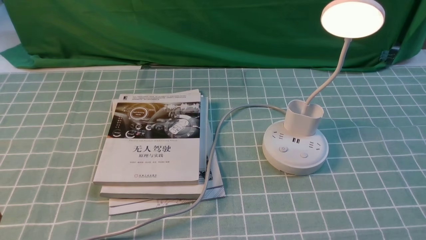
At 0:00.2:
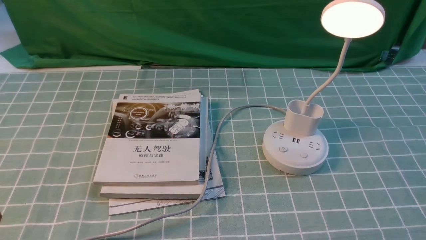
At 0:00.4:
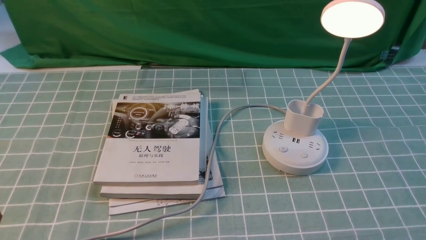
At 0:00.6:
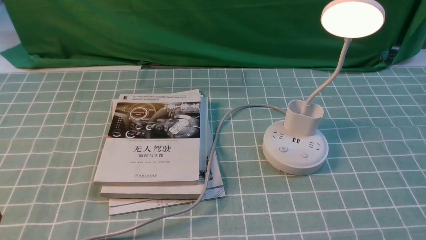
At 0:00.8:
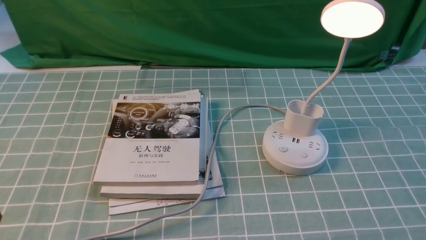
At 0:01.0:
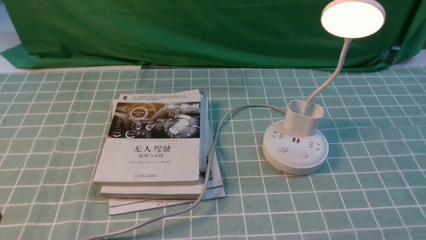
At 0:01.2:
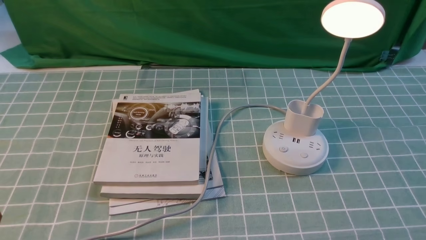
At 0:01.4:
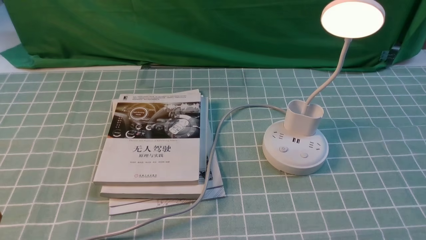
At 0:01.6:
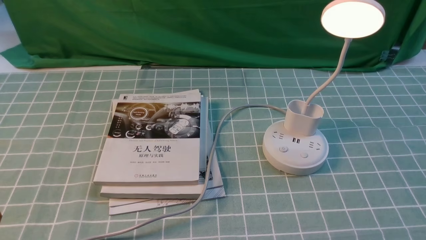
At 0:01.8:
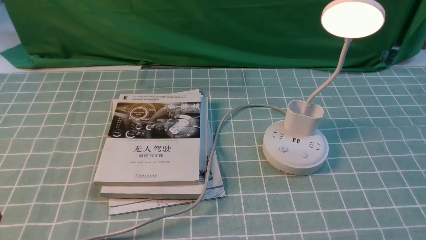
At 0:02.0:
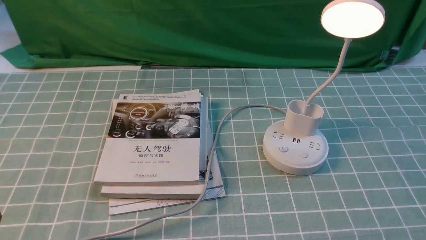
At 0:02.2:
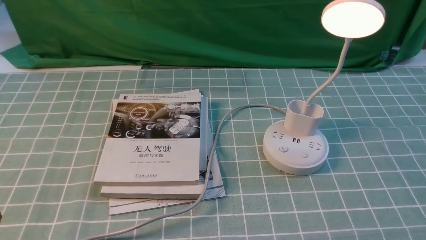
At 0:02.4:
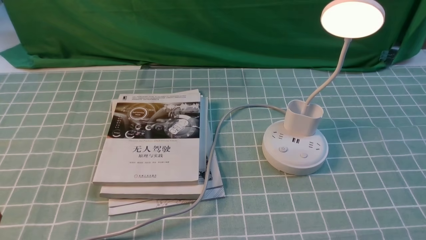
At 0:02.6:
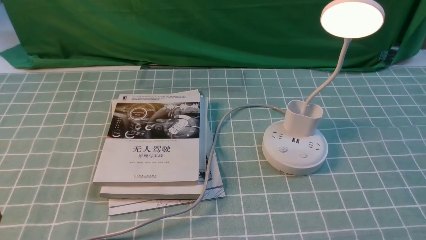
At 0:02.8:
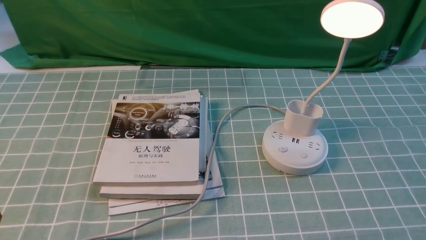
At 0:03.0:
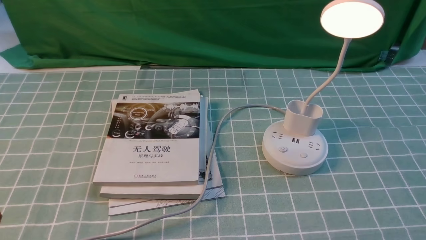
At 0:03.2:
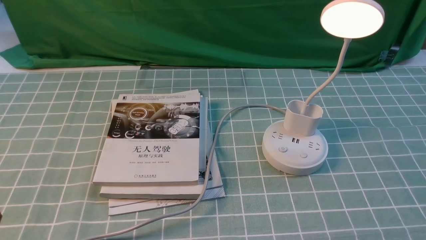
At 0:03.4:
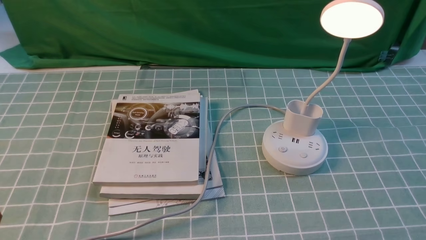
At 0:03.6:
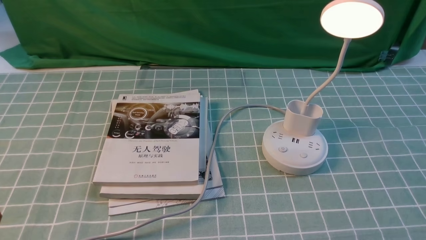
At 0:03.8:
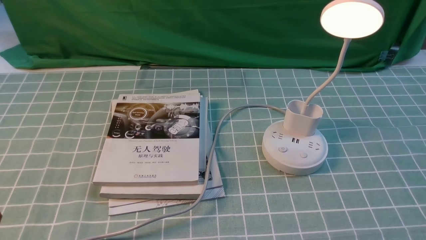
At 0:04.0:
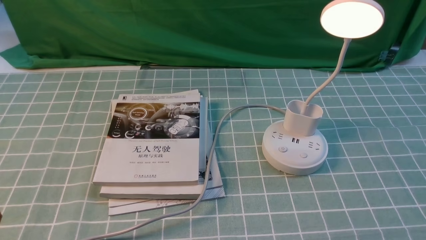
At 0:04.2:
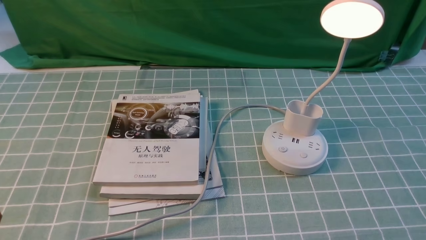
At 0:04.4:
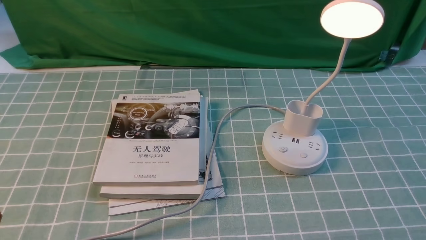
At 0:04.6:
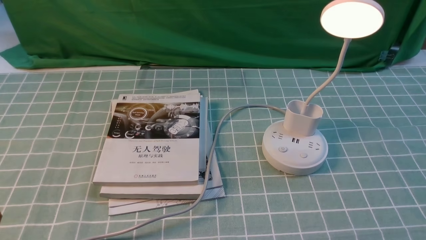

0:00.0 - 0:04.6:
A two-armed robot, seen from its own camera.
0:01.6 - 0:04.6: Both grippers stay about where they are.

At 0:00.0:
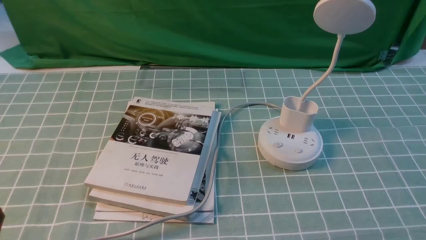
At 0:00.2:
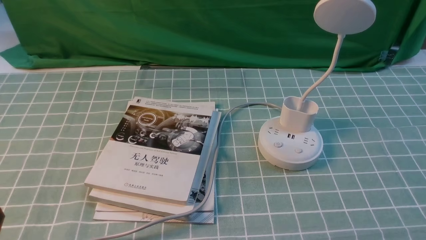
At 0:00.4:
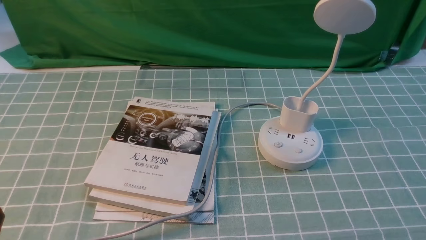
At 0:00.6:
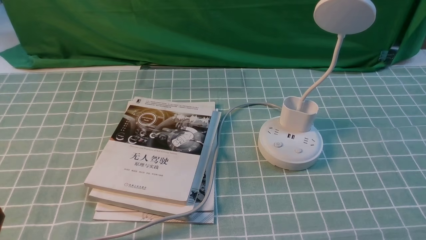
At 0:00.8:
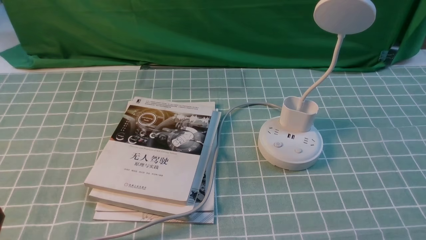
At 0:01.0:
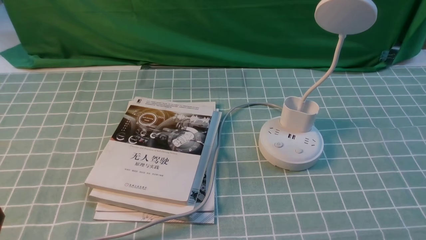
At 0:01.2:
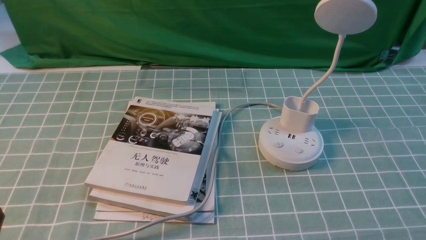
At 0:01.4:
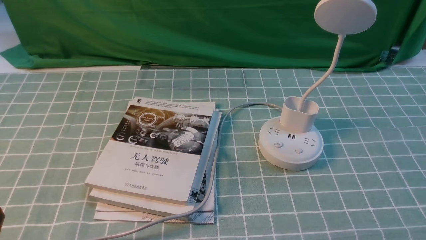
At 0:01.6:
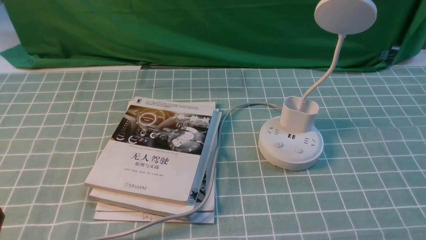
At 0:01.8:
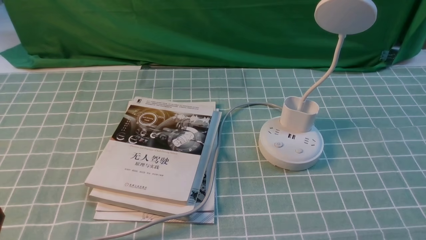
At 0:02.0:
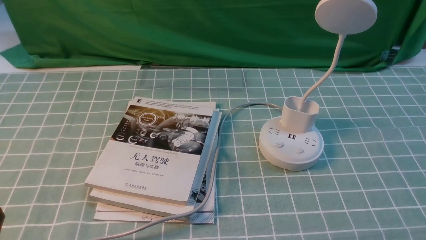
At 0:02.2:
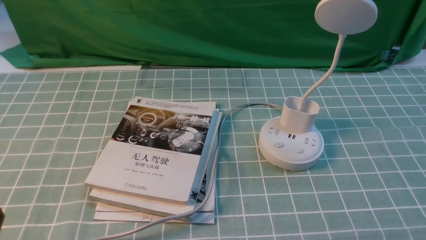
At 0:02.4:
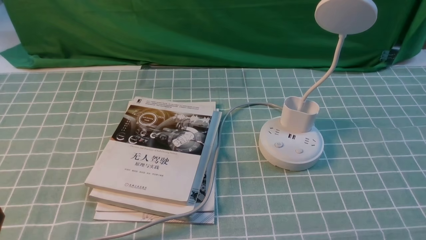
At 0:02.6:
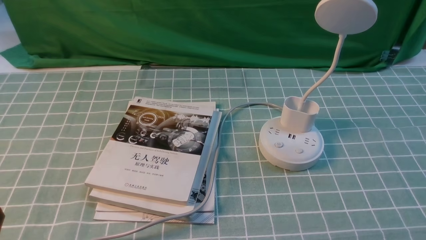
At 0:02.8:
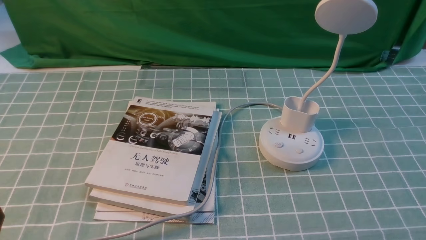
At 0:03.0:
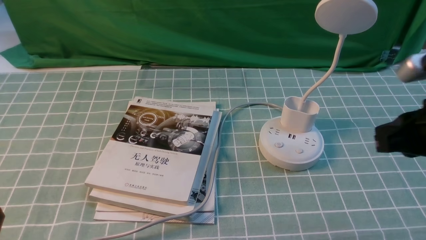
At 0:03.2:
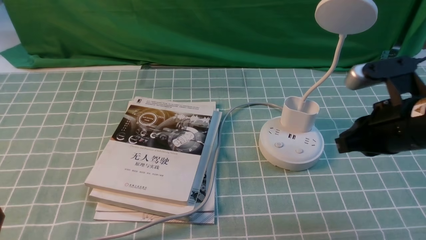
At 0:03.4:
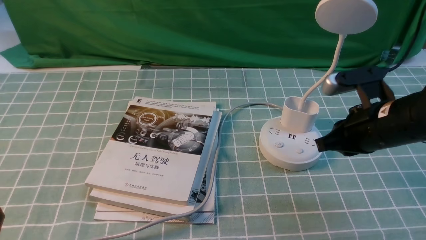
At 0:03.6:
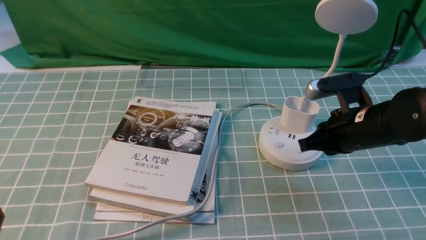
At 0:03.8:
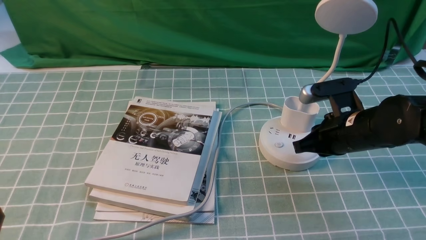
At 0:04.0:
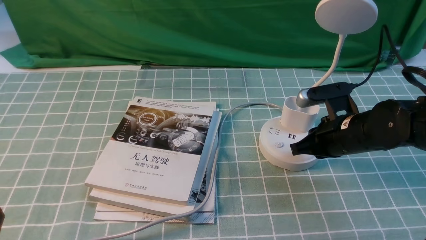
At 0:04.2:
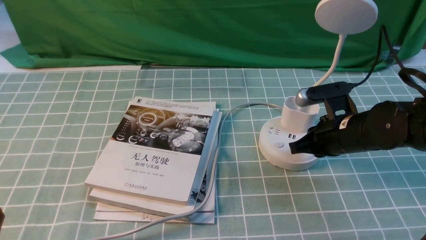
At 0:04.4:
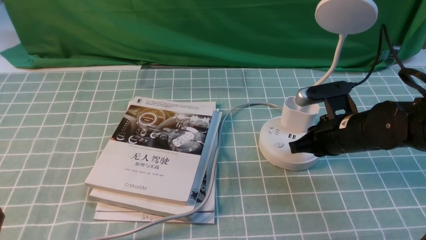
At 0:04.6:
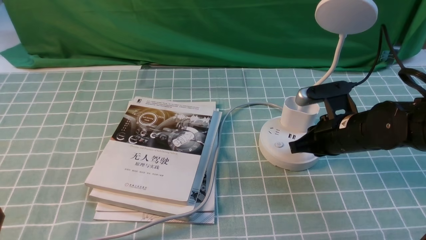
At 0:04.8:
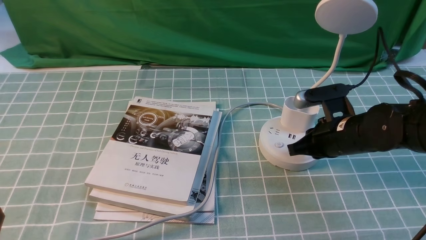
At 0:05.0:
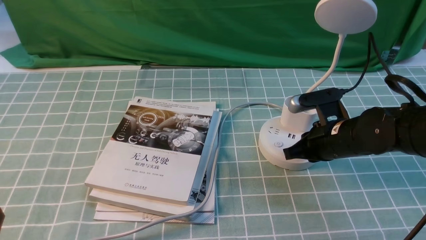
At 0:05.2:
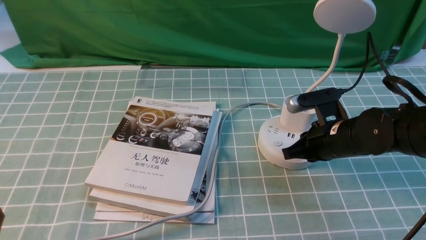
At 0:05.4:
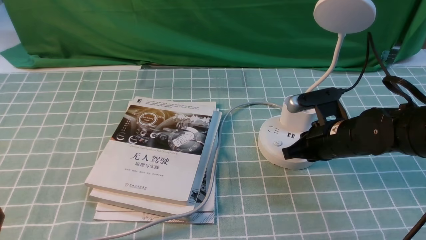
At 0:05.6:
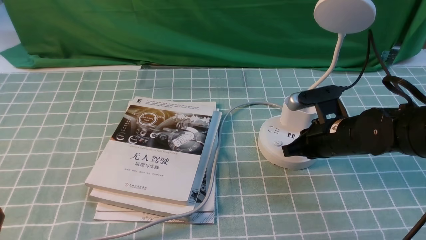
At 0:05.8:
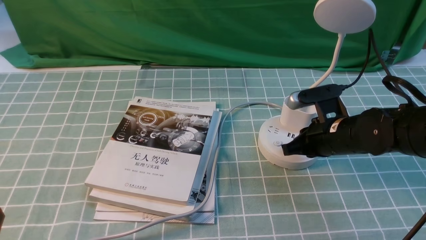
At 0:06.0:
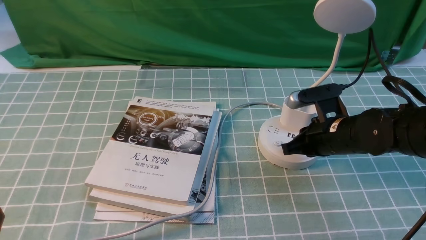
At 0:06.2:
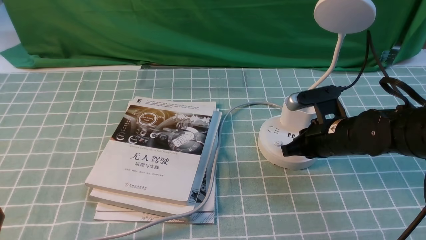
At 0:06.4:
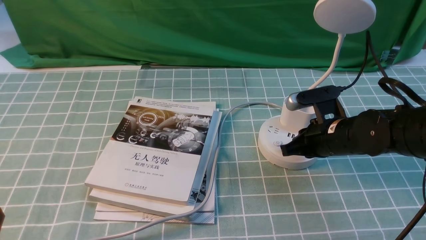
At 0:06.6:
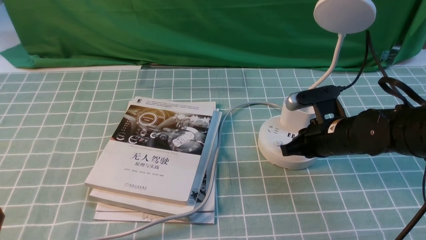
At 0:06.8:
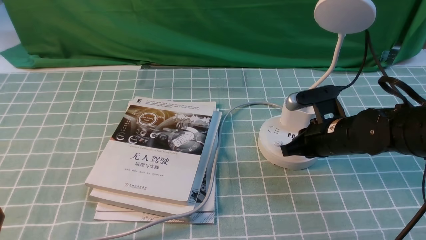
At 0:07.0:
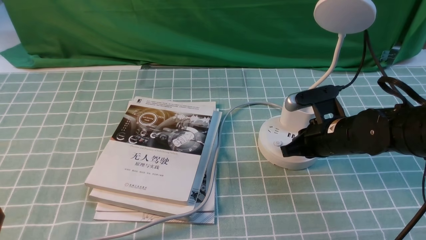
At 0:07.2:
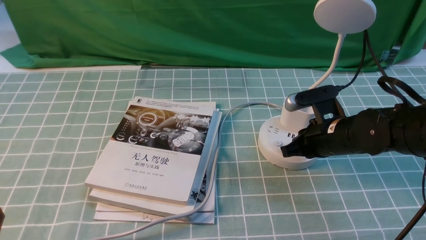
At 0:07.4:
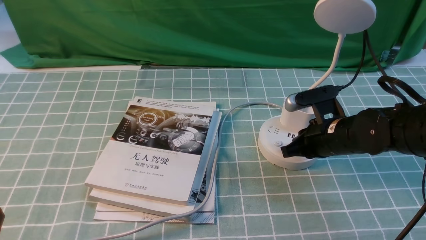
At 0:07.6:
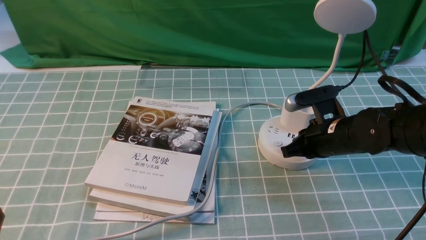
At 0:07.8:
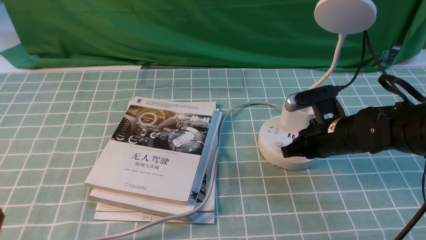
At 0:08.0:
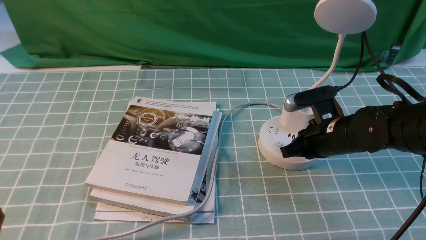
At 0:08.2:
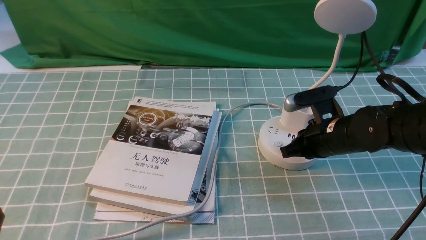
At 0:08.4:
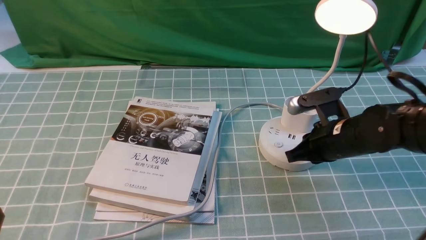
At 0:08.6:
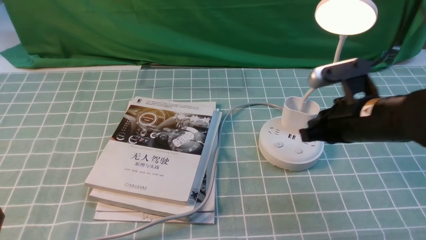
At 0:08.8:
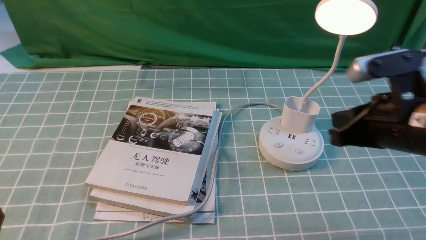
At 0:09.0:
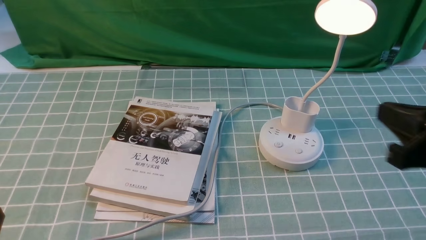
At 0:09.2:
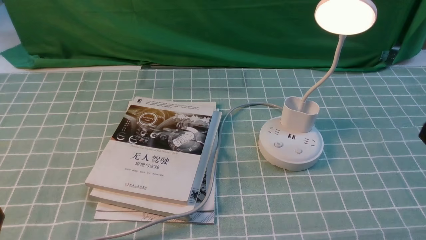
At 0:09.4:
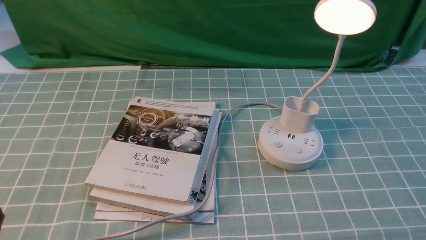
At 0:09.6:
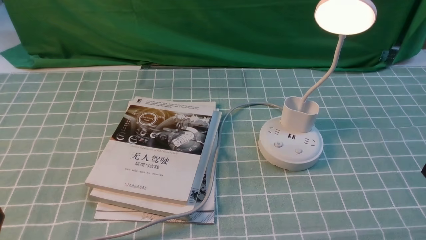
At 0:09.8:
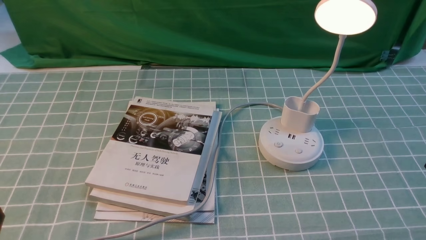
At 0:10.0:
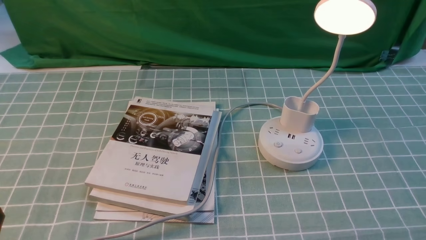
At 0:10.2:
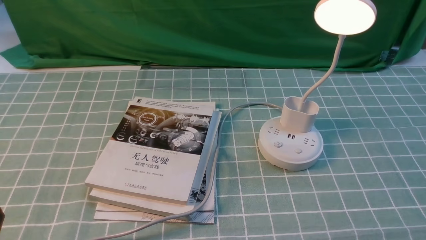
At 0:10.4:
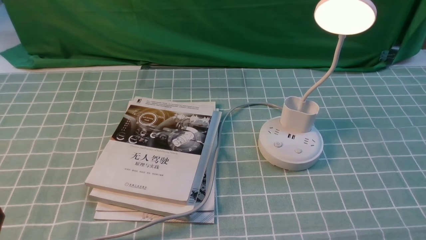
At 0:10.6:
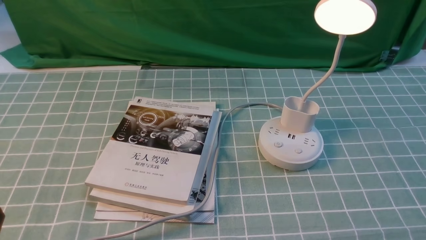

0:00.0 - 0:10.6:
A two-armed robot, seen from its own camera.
Step, 0:00.0 - 0:08.6: use the right arm to press the button switch on the lamp holder.
0:01.6 - 0:03.0: The right gripper heads forward and upward, covering about 20 cm, and closes its fingers.
0:03.0 - 0:04.6: The right gripper is displaced downward, forward and to the left by approximately 20 cm.
0:04.6 - 0:06.0: The grippers make only small movements.
0:06.0 - 0:07.6: Both grippers stay put.
0:07.6 - 0:09.0: The right gripper goes some 20 cm upward, backward and to the right.
0:09.0 - 0:10.6: The right gripper heads backward, downward and to the right, covering some 20 cm, and opens its fingers.

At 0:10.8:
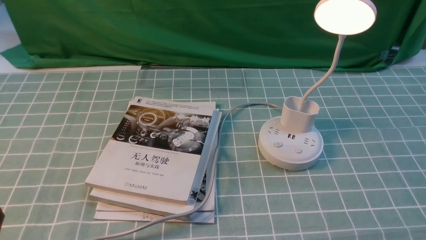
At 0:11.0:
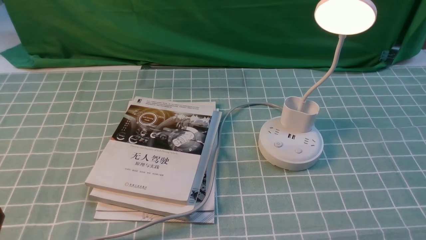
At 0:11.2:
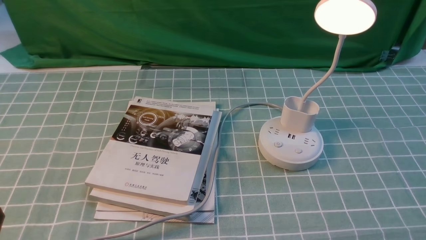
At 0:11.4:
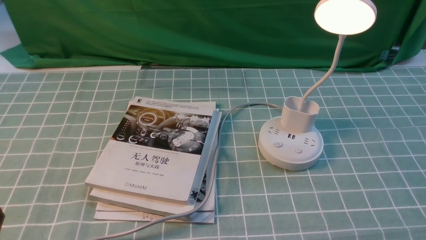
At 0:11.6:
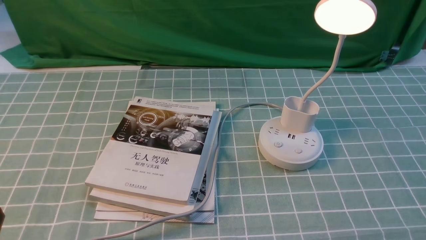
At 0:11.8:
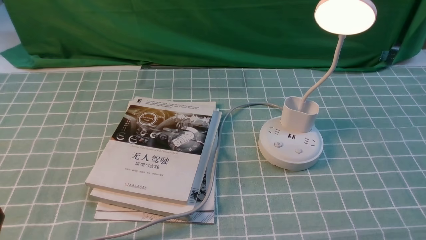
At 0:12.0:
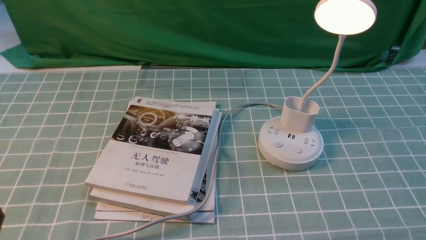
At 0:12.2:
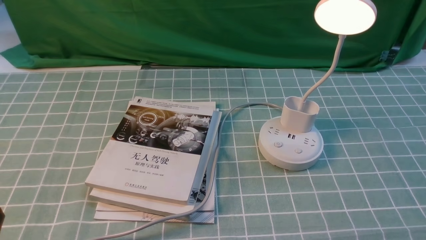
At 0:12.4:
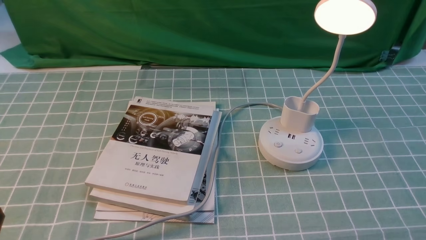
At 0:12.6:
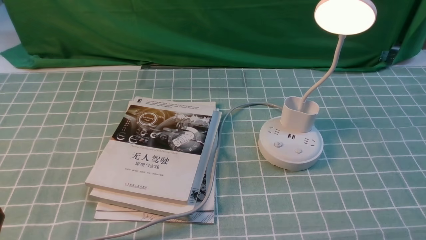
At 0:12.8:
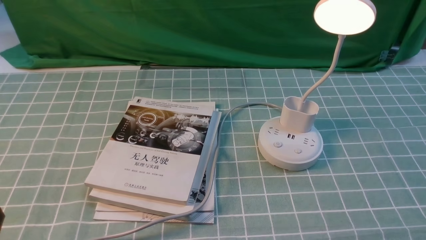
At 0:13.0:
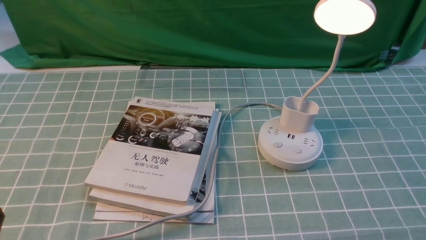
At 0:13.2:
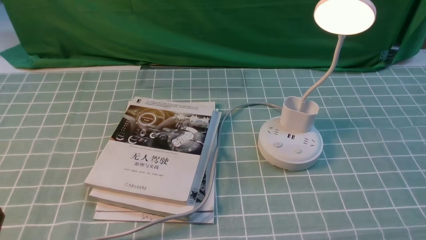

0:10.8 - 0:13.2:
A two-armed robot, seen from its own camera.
0:12.0 - 0:13.2: Neither gripper changes place.
